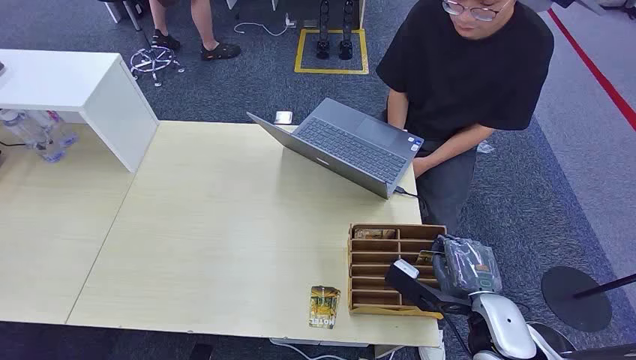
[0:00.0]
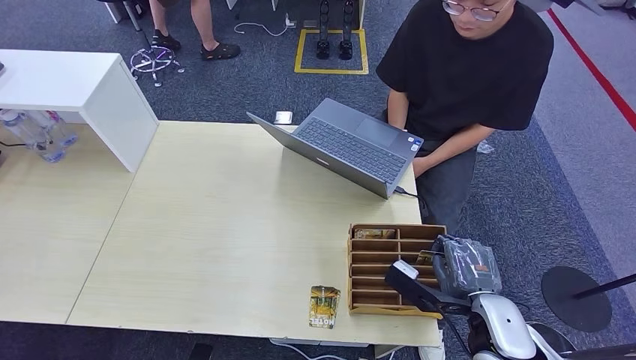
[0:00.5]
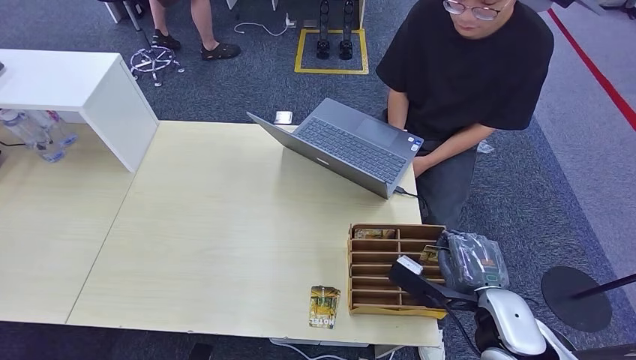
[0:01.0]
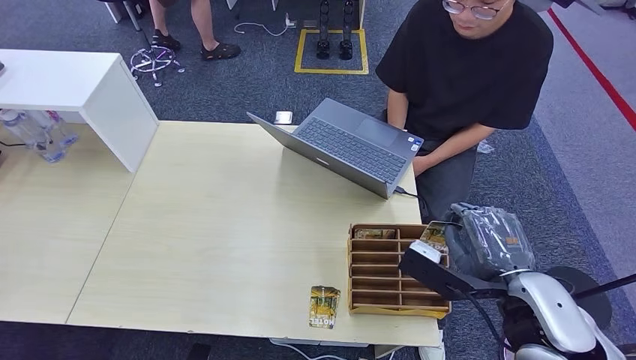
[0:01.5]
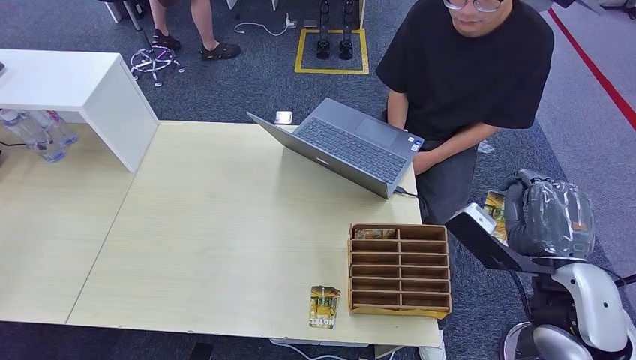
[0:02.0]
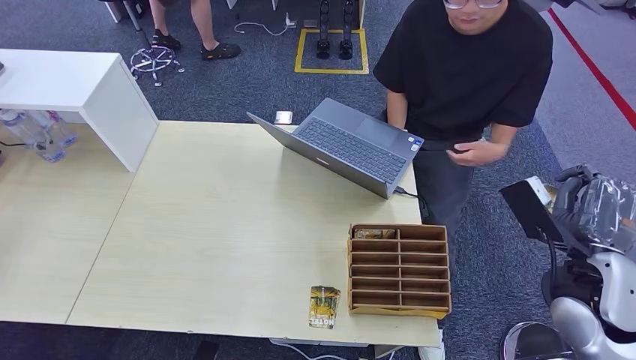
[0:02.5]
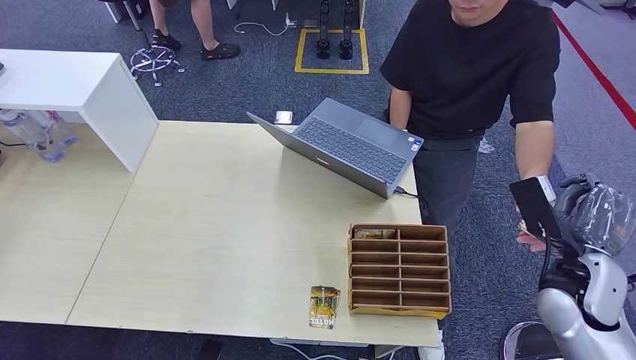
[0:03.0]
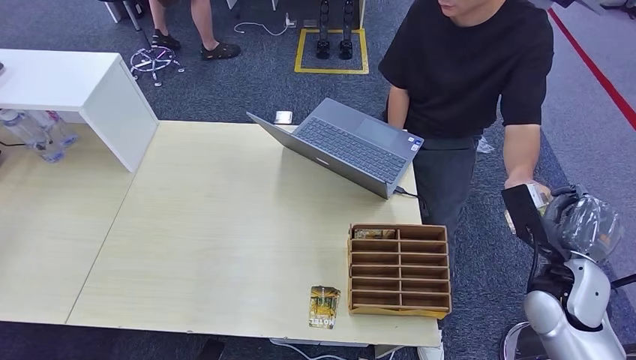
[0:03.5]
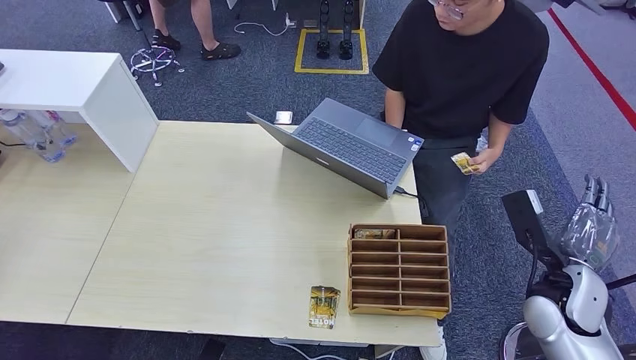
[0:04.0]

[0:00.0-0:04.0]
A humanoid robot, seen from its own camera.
Task of the whole recording: Pick up the card and hand it to the target person.
Step, 0:00.0 to 0:01.5: Pick up the key card from the card box.
Step, 0:02.5 to 0:04.0: Hand the key card to the target.
0:02.0 to 0:04.0: The right hand is displaced downward and to the right by some 10 cm.
